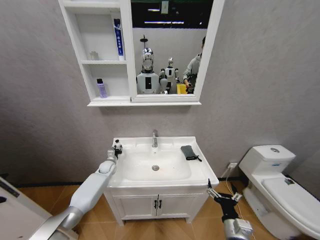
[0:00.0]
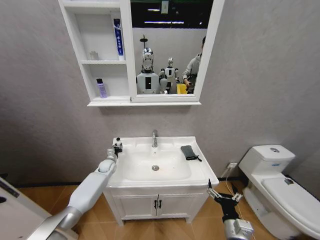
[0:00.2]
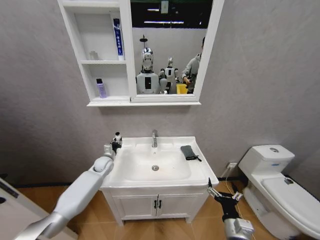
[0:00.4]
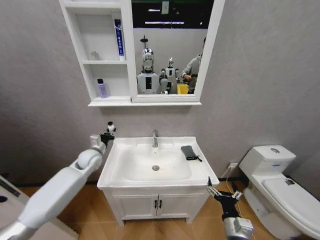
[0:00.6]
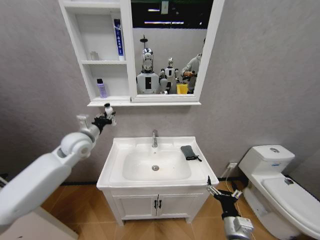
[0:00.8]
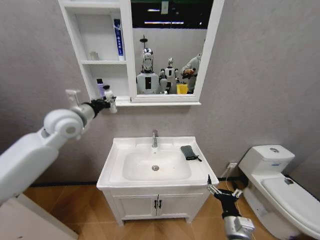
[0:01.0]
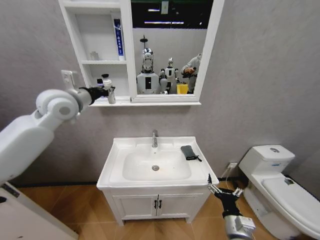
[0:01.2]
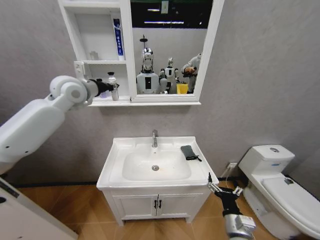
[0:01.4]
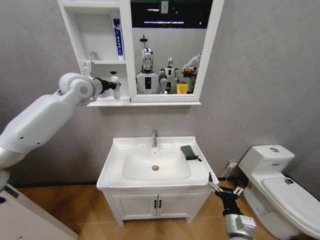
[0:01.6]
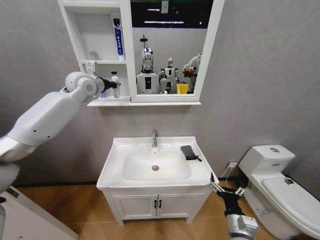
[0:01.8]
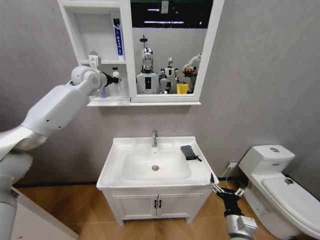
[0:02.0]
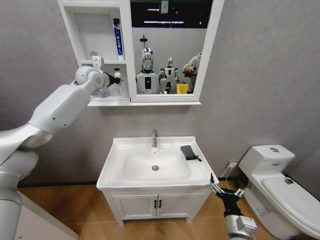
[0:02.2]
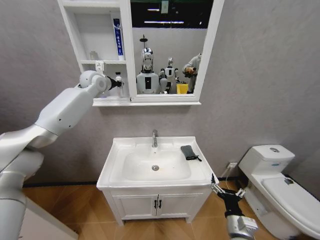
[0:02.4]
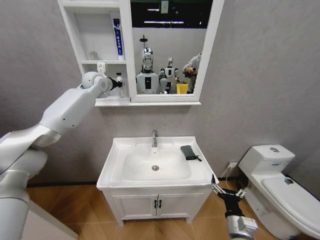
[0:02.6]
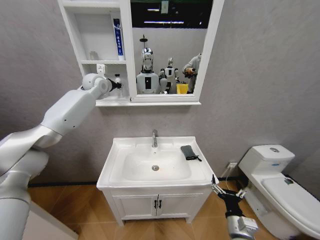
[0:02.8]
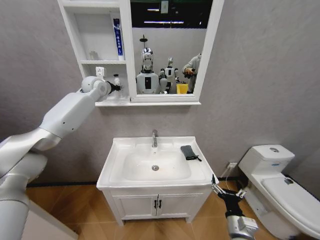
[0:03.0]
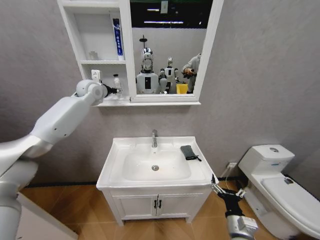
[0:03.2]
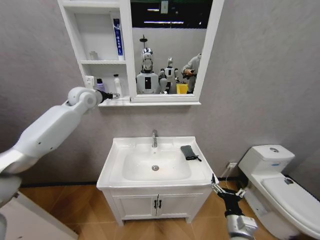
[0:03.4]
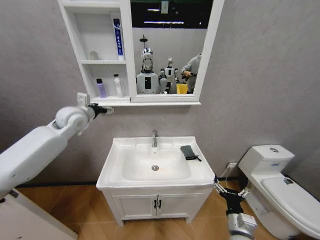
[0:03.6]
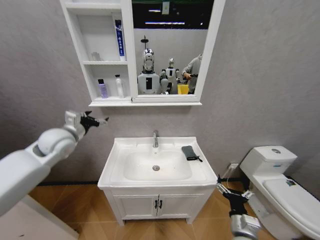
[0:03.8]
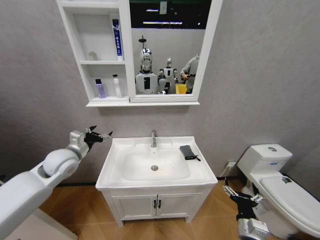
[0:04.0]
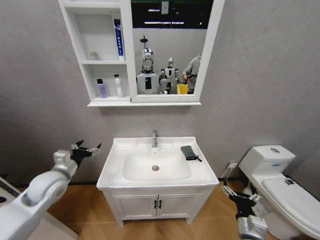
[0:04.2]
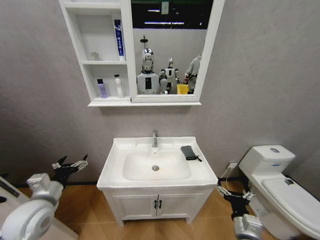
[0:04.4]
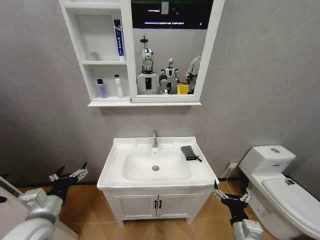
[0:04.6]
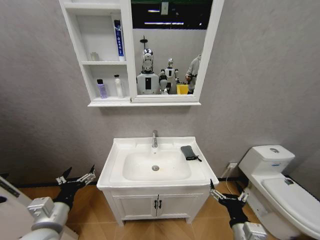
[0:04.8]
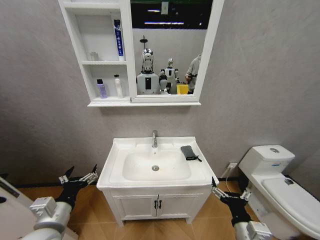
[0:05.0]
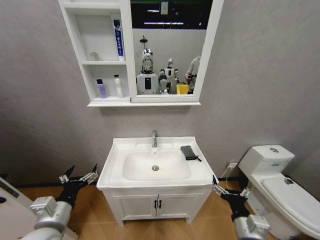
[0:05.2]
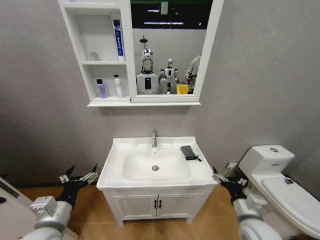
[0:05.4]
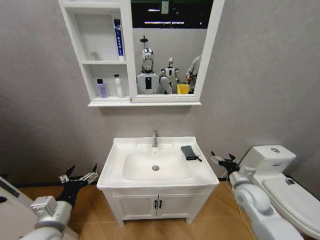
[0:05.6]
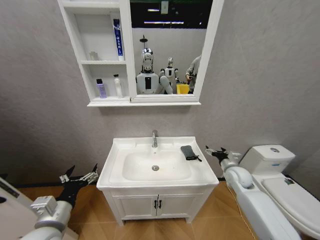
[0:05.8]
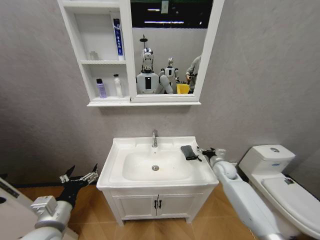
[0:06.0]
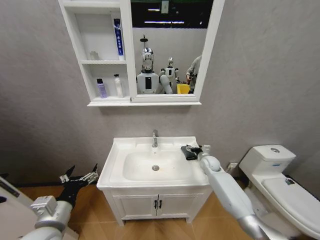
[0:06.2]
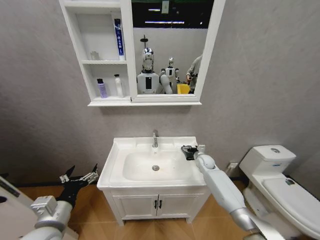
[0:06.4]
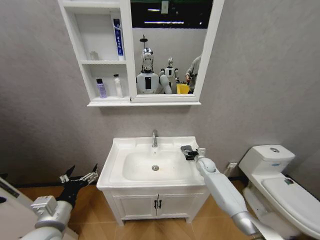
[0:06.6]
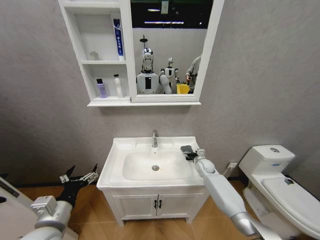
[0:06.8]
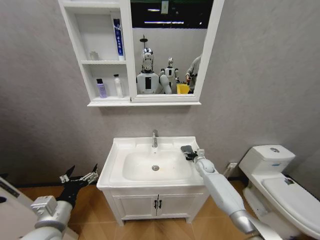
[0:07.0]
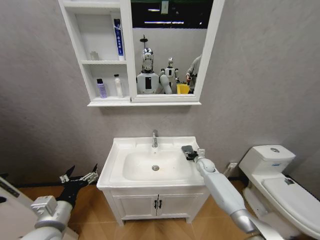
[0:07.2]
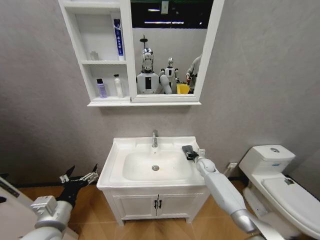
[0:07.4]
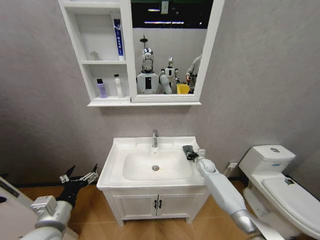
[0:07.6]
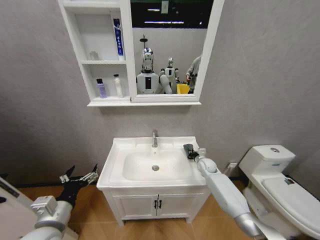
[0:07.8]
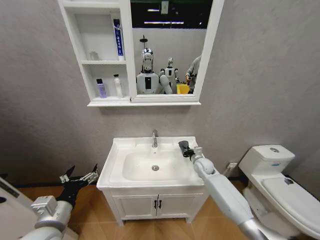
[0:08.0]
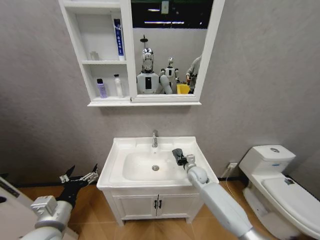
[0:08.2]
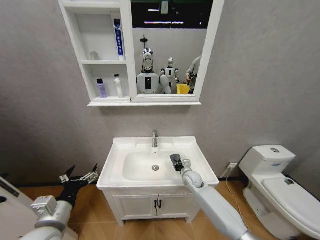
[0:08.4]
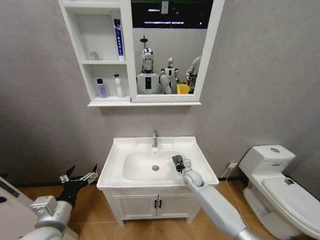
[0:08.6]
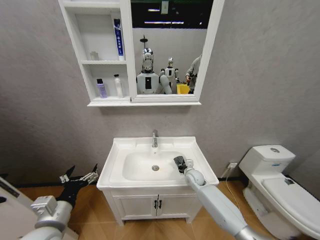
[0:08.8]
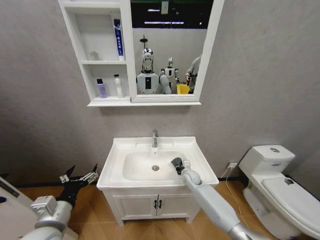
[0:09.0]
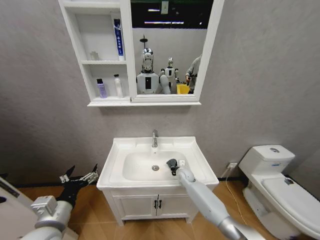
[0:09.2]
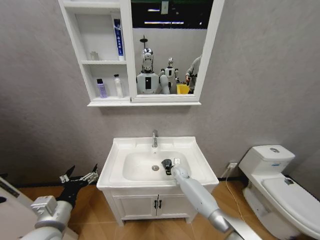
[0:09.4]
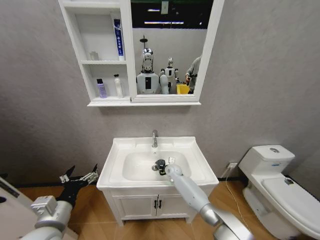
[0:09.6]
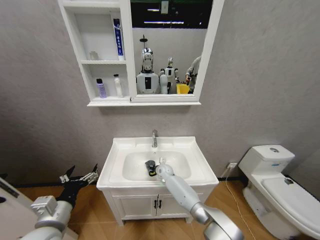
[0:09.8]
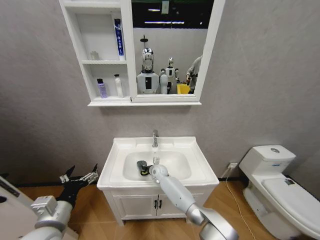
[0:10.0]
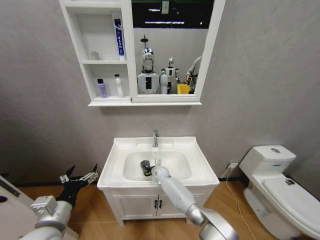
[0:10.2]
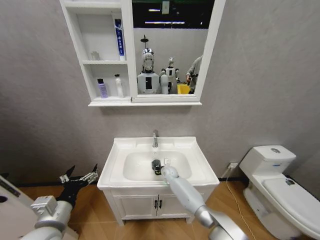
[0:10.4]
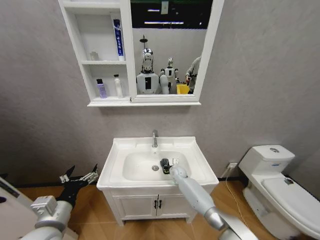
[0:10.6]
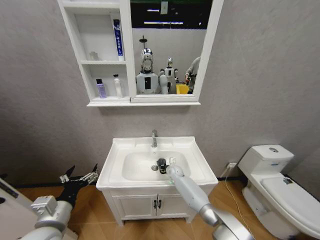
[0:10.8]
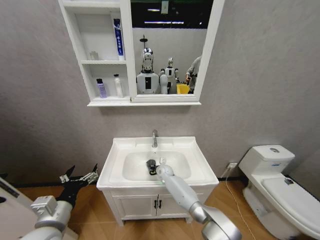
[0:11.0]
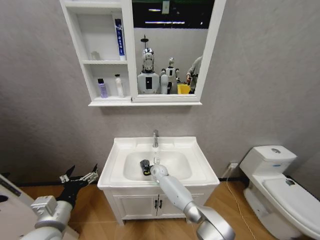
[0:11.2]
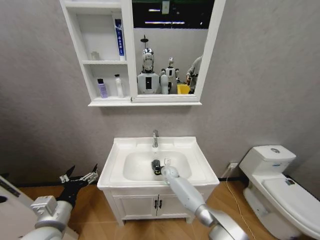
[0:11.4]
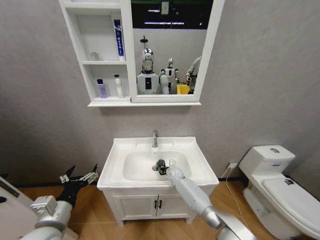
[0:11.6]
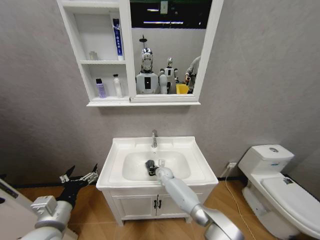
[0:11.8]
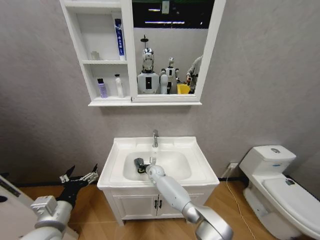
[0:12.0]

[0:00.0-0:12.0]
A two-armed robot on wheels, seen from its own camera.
Task of the whole recording: Move facial cleanser and shampoo from washbasin to cabinet, then wipe washbasin with towel.
0:00.0 to 0:01.6: The left gripper travels upward by approximately 50 cm.
0:01.6 to 0:03.0: The left gripper heads forward, covering roughly 10 cm.
0:03.0 to 0:04.4: The left gripper heads backward and downward, covering about 40 cm, and opens.
0:04.4 to 0:06.0: The right gripper is displaced forward by roughly 30 cm. The left gripper shifts approximately 10 cm backward and to the right.
0:06.0 to 0:07.6: The right gripper is displaced forward, downward and to the left by about 10 cm, and closes its fingers.
0:07.6 to 0:09.0: The right gripper is displaced to the left and backward by some 10 cm.
0:09.0 to 0:10.4: The right gripper is displaced to the left and forward by roughly 10 cm.
0:10.4 to 0:12.0: The right gripper goes left and right, approximately 15 cm each way, reversing 2 times.

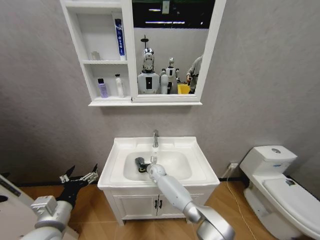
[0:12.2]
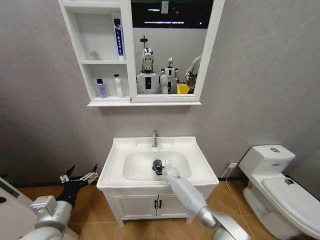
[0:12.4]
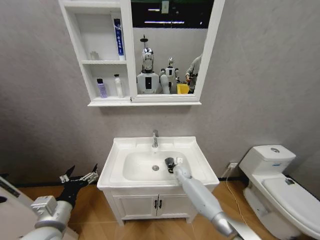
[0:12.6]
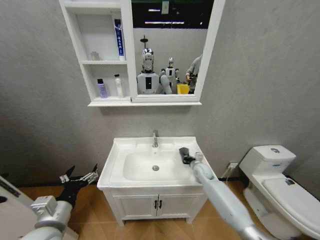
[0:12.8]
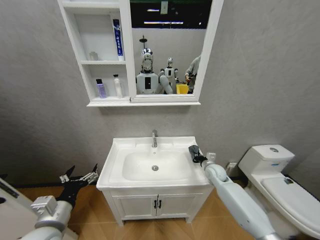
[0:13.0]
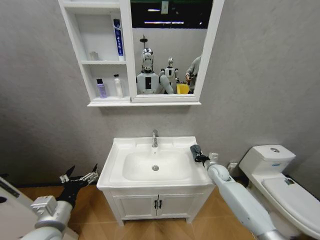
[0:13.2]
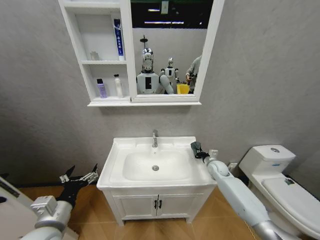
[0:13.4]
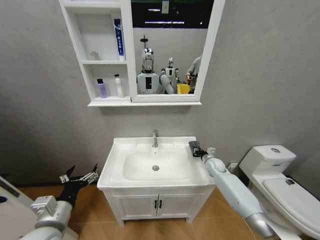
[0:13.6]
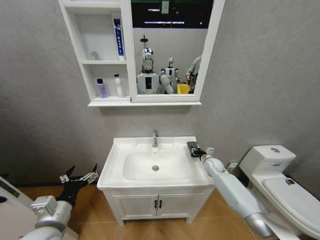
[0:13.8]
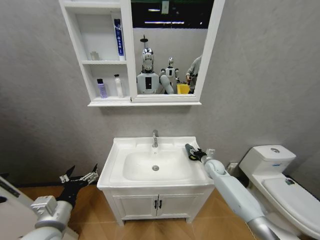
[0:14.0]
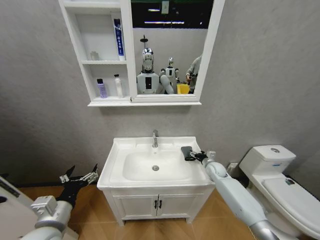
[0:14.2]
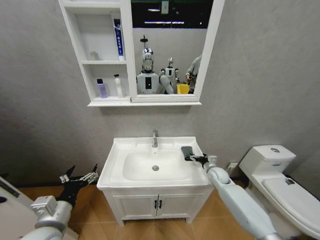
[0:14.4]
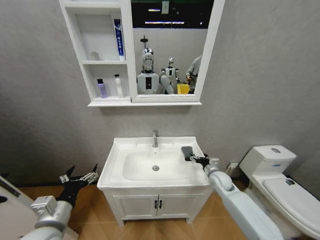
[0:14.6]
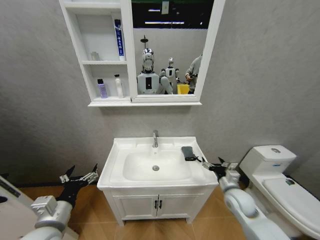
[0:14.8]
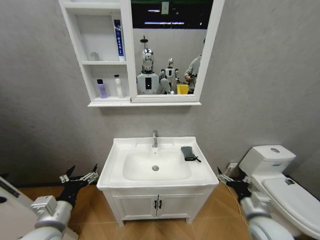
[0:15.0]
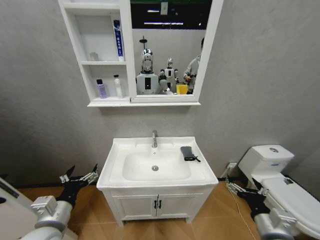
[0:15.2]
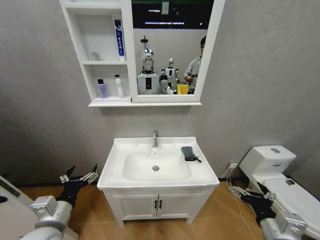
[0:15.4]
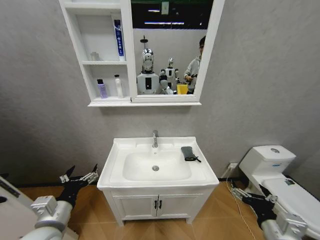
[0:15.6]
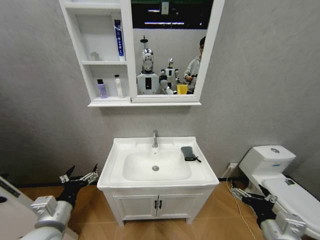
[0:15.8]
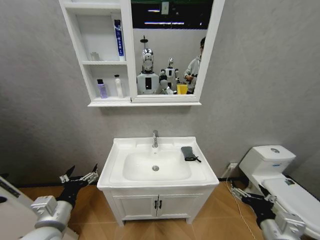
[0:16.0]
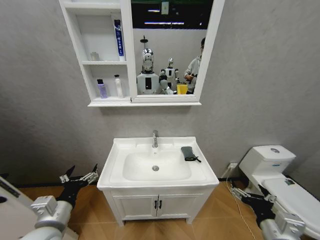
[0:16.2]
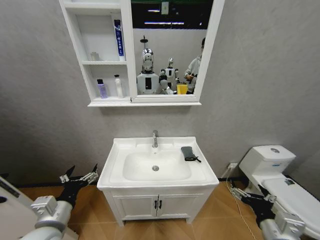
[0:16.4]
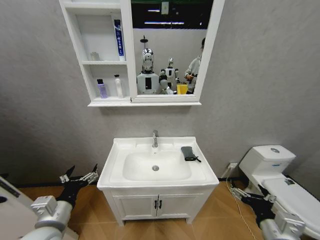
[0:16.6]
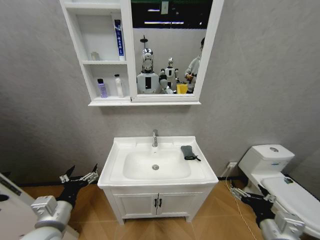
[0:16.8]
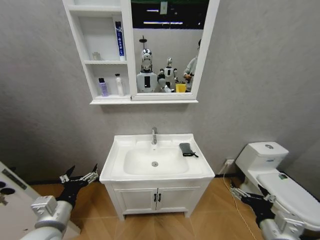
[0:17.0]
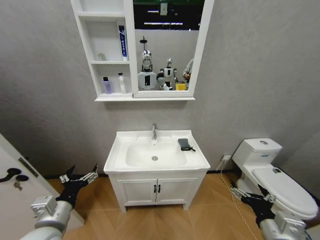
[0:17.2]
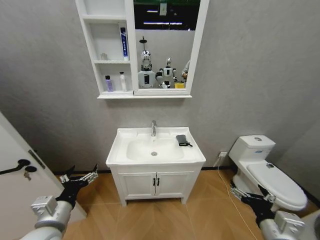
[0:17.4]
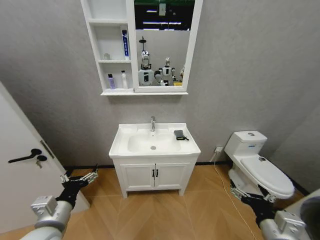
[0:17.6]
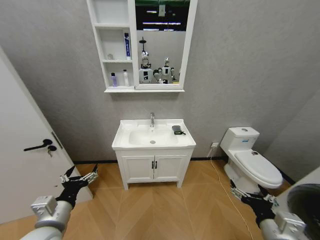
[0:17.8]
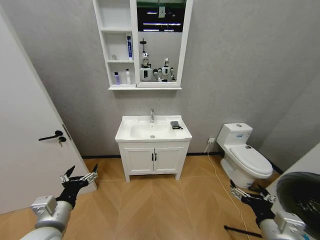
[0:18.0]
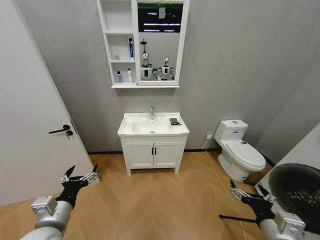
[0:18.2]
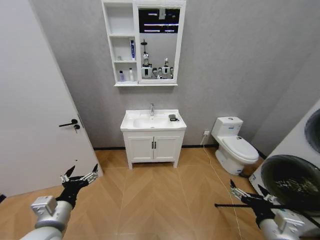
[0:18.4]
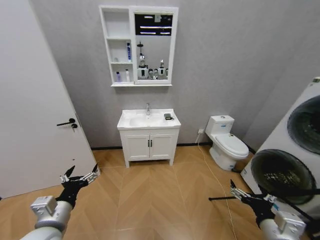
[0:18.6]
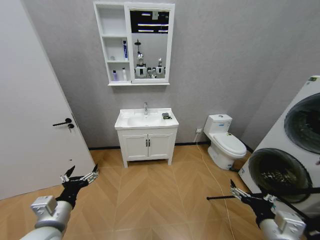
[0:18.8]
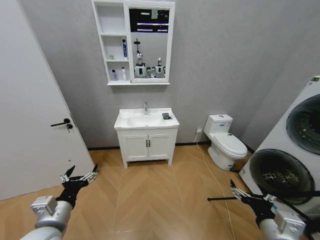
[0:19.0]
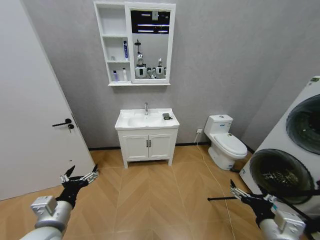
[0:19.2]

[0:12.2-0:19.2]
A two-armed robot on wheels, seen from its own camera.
Task of the whole recording: Move facial cleanser and shampoo from washbasin to cabinet, then wipe washbasin with towel.
0:12.2 to 0:13.6: The right gripper shifts approximately 35 cm to the right.
0:13.6 to 0:15.0: The right gripper shifts about 30 cm backward, and opens.
0:15.0 to 0:16.4: The right gripper moves backward and upward, roughly 10 cm.
